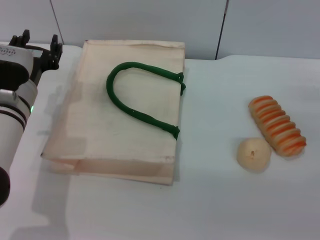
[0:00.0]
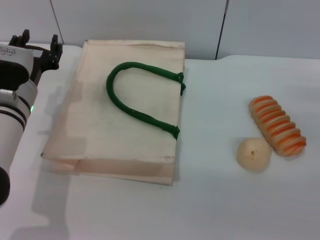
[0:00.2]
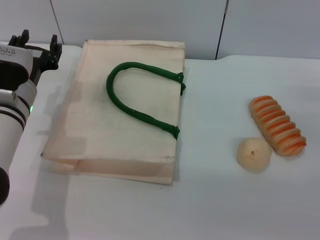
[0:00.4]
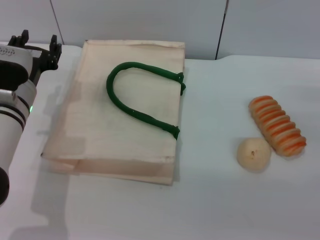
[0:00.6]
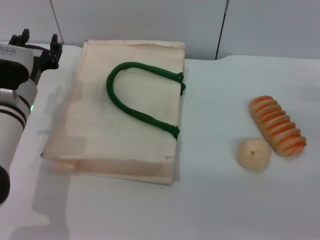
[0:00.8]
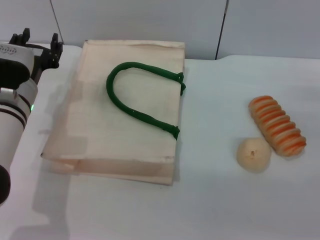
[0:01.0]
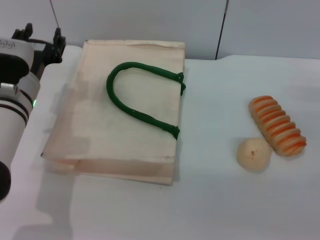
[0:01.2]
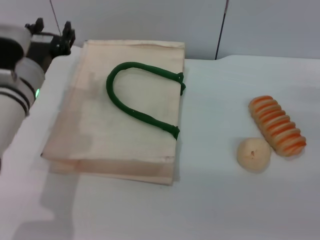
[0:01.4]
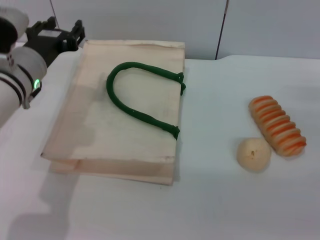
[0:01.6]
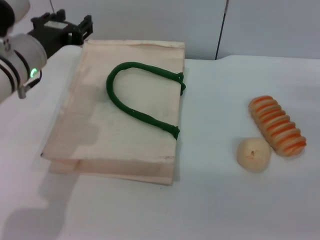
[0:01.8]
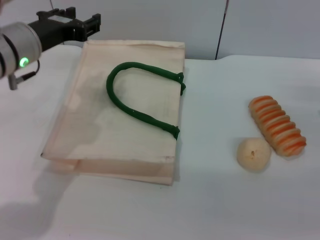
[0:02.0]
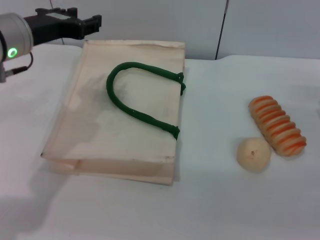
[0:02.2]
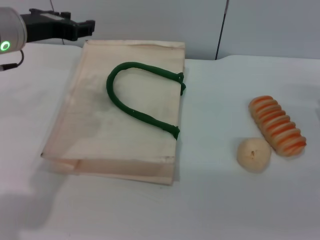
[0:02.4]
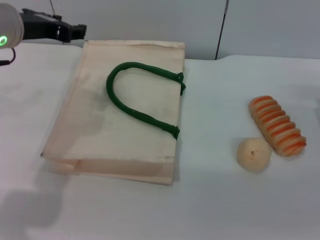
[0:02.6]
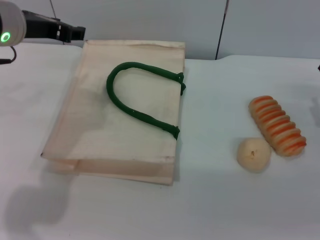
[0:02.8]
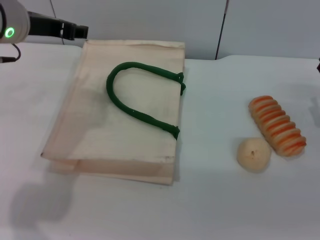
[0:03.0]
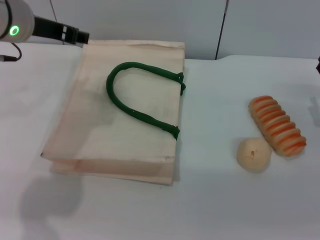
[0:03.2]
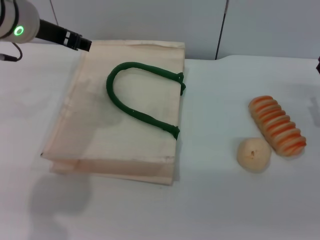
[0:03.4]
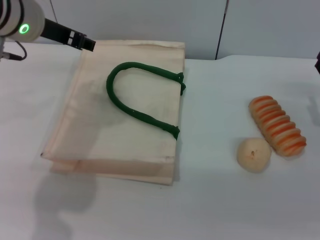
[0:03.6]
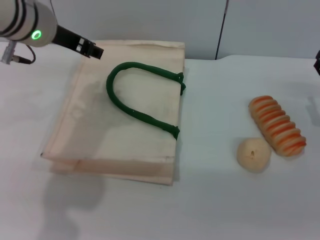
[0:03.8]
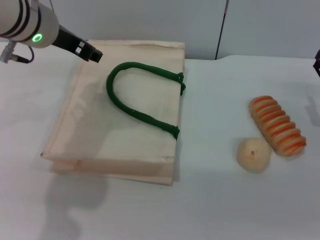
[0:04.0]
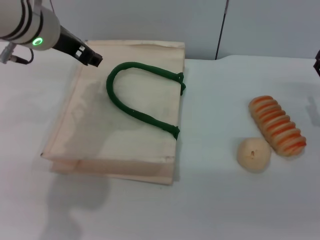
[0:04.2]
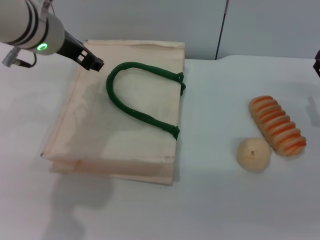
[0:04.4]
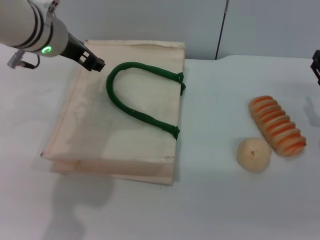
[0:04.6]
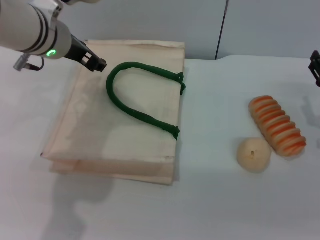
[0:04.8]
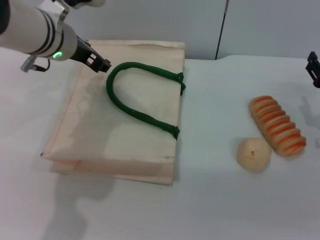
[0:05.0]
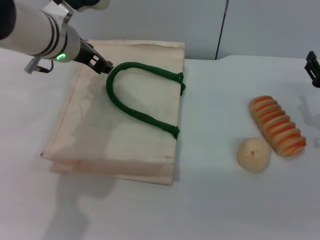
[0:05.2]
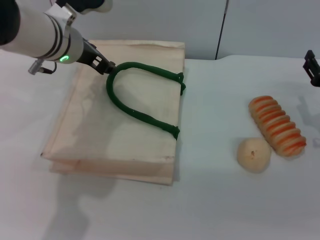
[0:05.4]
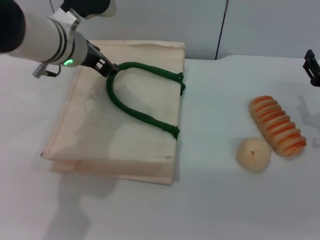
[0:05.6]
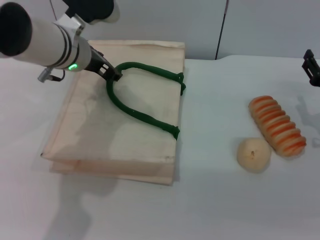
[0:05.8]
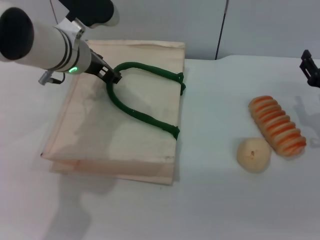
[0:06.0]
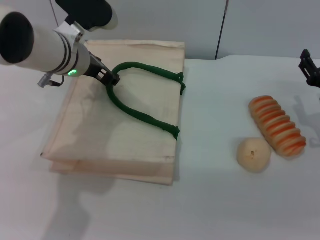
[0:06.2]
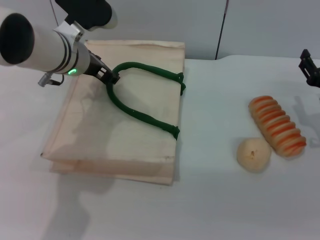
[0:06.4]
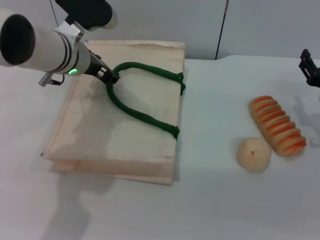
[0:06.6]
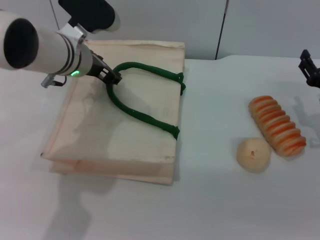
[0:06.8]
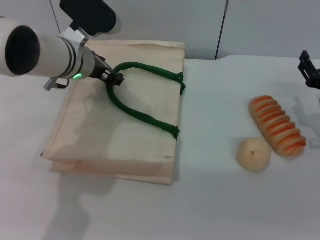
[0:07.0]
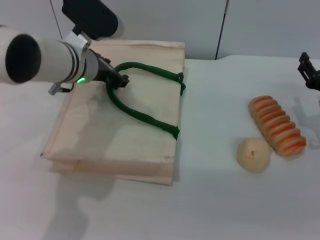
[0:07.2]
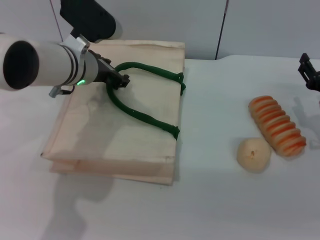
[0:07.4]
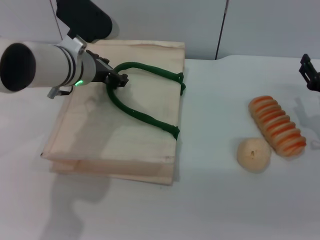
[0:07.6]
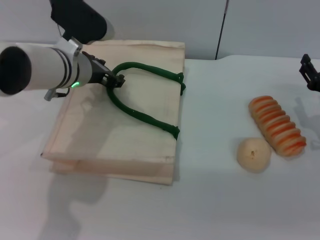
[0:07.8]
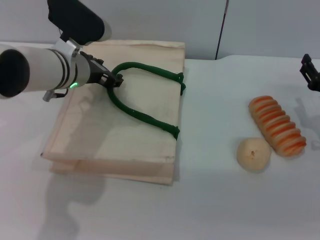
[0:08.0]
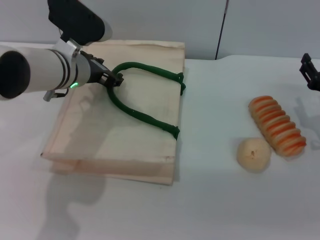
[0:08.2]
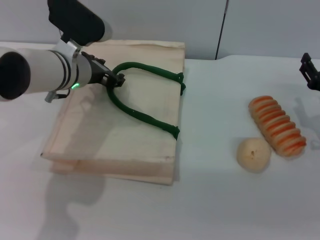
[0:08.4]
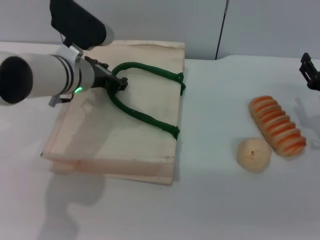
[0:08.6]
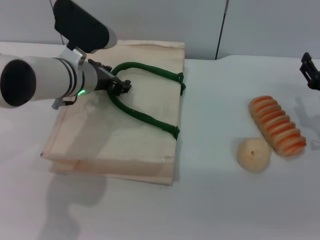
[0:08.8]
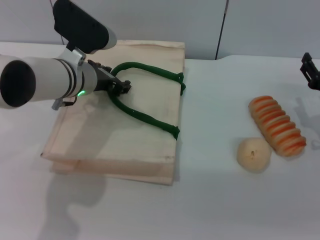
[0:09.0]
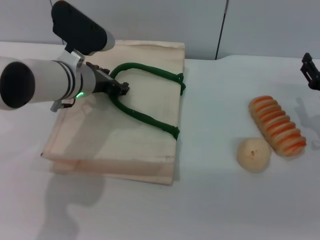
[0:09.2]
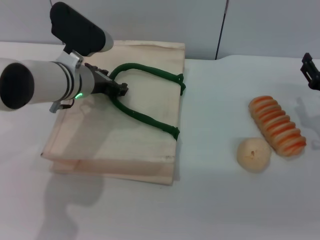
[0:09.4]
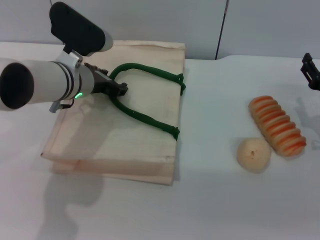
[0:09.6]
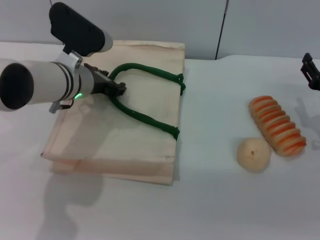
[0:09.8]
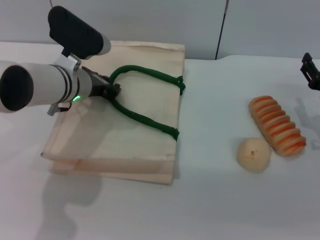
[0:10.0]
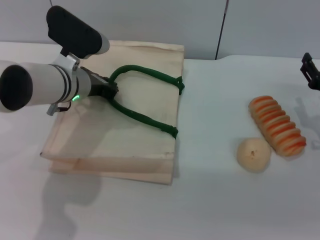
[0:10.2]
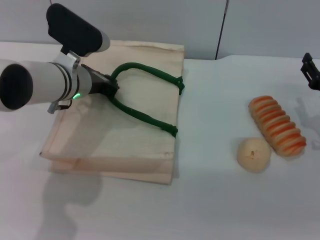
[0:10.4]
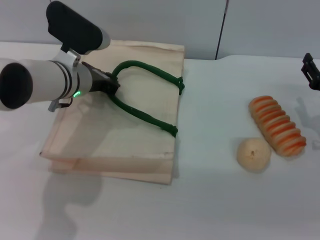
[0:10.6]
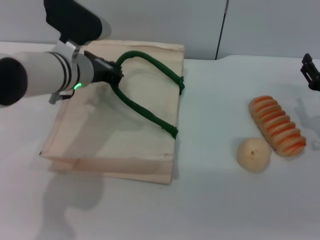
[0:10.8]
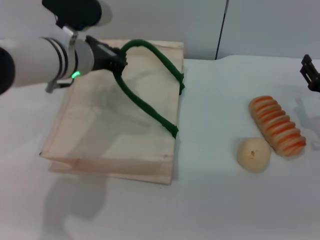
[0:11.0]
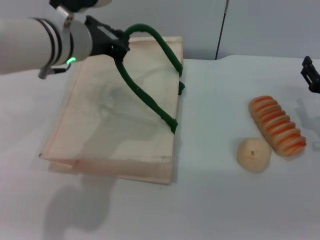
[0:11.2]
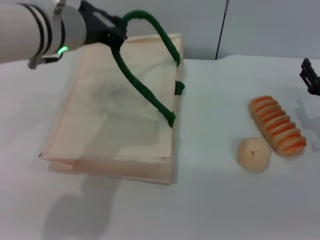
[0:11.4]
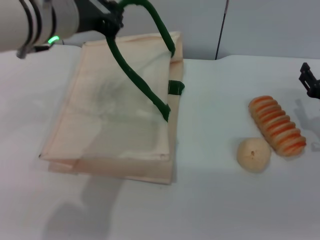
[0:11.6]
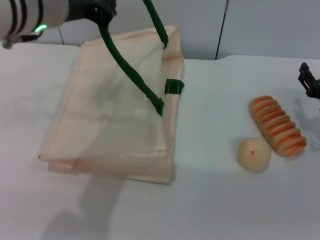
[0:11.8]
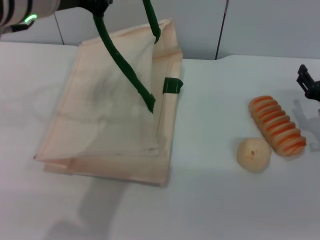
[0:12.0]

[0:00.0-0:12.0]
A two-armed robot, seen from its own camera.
Task of the whole recording: pick up the bread and egg yolk pastry from the table and place it in the white handbag.
Step, 0:00.0 to 0:11.2: Lift the woven bag with the left gripper to open it.
0:00.0 to 0:01.6: The left gripper is displaced upward by some 5 cm.
0:01.6 to 0:03.0: The left gripper is displaced upward by about 10 cm.
0:04.4 to 0:06.0: The left gripper heads downward, covering some 5 cm.
0:06.0 to 0:09.0: The grippers move only a little.
0:09.0 to 0:10.4: The left gripper closes its fingers.
0:10.4 to 0:12.0: The left gripper heads upward and backward, covering some 20 cm.

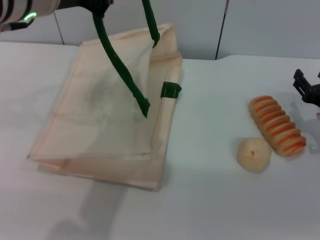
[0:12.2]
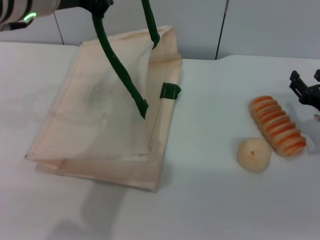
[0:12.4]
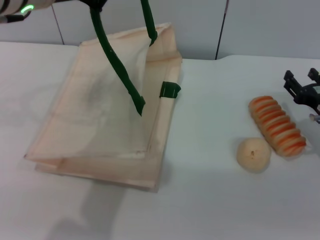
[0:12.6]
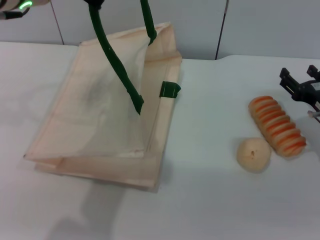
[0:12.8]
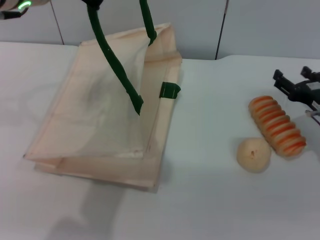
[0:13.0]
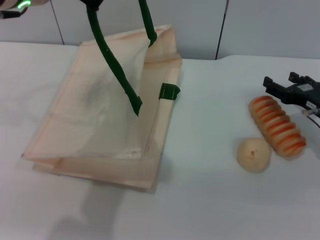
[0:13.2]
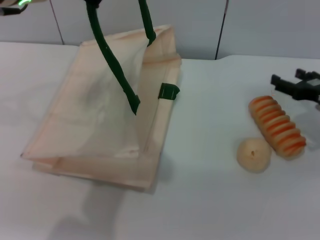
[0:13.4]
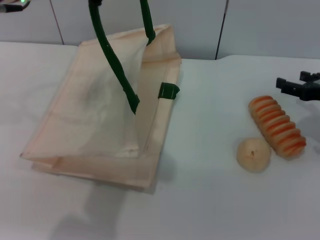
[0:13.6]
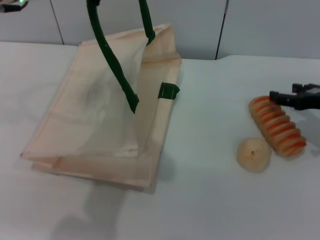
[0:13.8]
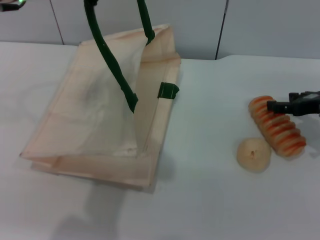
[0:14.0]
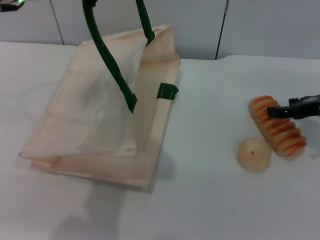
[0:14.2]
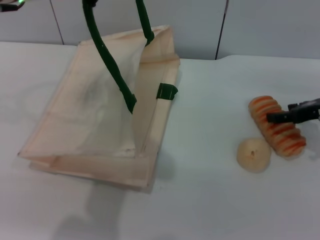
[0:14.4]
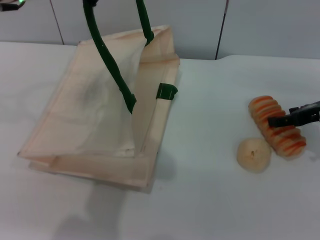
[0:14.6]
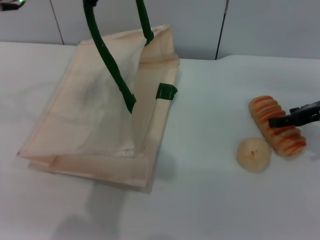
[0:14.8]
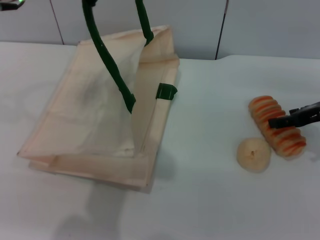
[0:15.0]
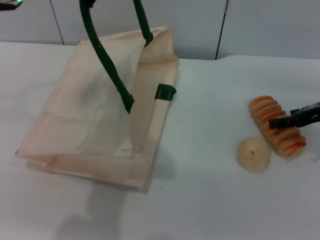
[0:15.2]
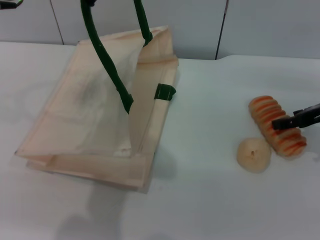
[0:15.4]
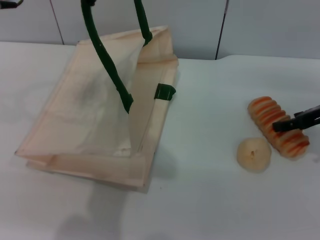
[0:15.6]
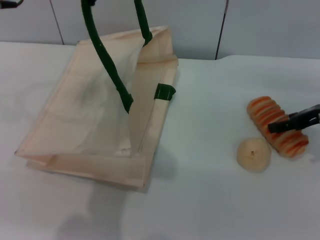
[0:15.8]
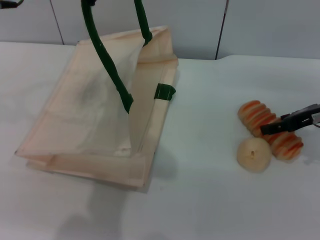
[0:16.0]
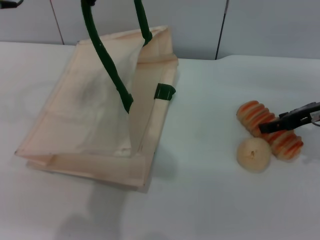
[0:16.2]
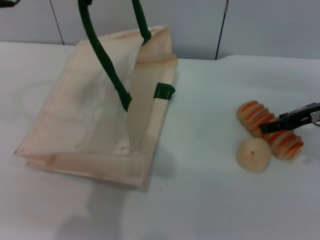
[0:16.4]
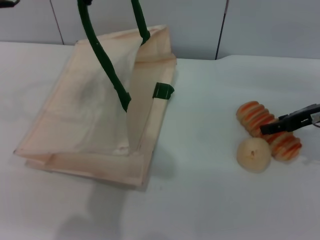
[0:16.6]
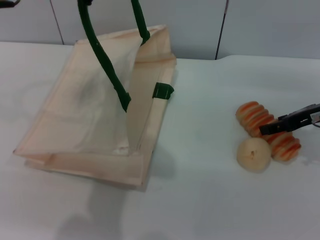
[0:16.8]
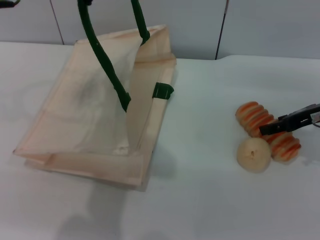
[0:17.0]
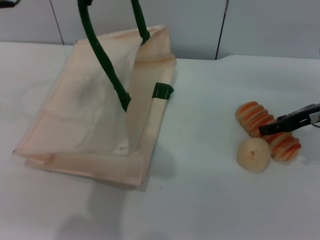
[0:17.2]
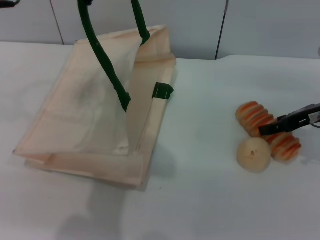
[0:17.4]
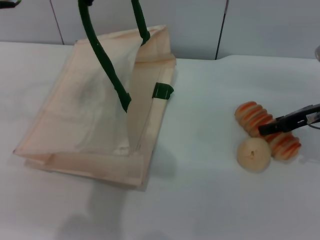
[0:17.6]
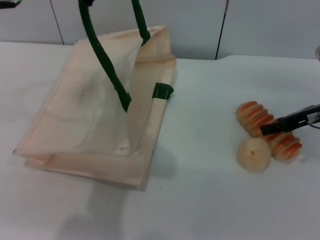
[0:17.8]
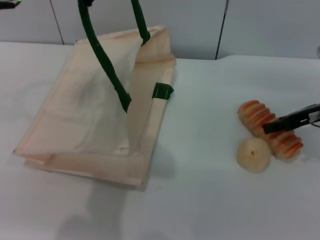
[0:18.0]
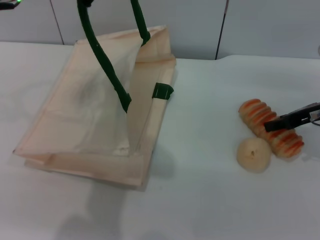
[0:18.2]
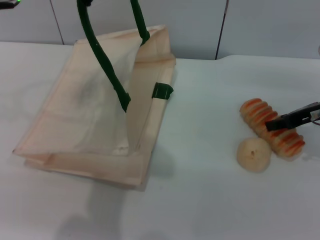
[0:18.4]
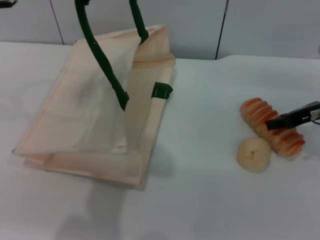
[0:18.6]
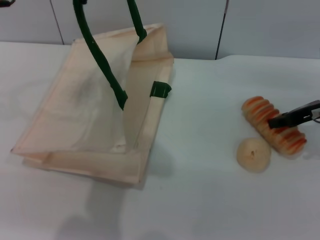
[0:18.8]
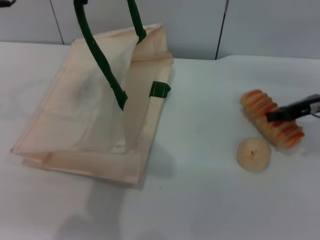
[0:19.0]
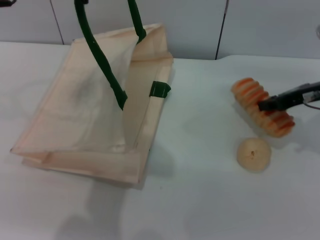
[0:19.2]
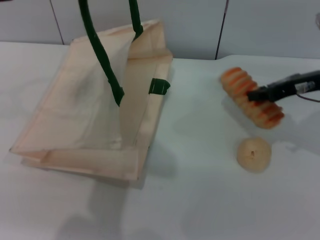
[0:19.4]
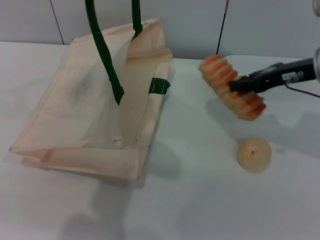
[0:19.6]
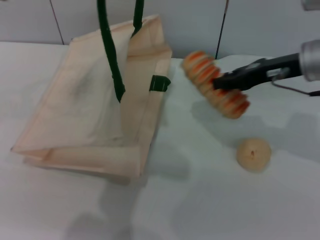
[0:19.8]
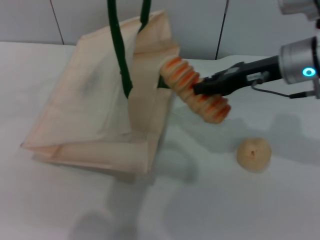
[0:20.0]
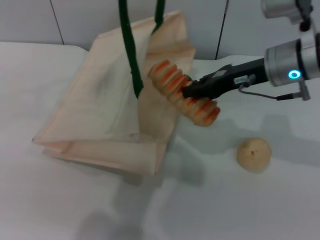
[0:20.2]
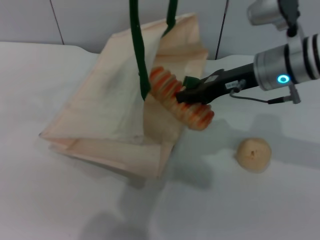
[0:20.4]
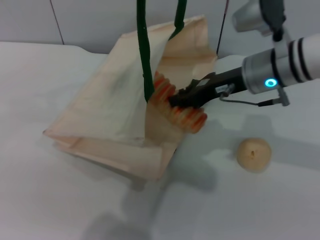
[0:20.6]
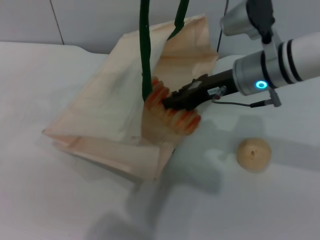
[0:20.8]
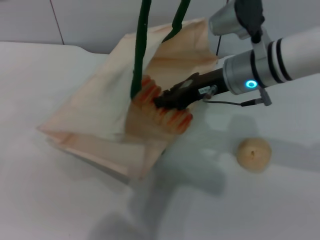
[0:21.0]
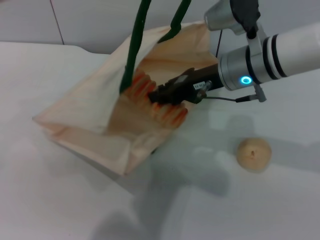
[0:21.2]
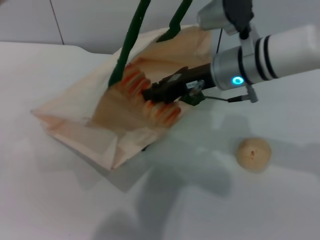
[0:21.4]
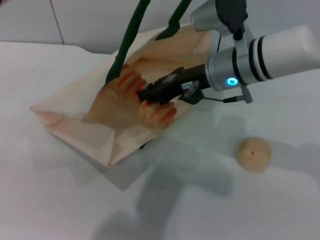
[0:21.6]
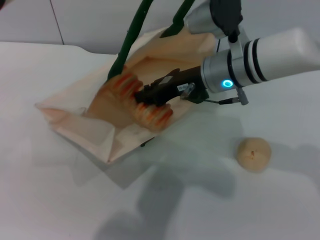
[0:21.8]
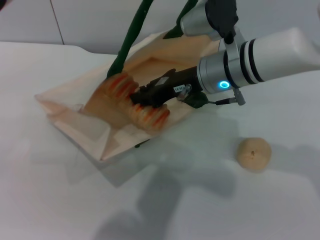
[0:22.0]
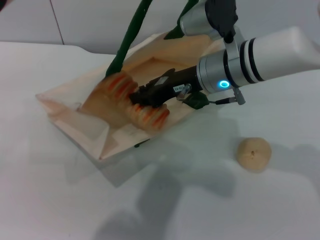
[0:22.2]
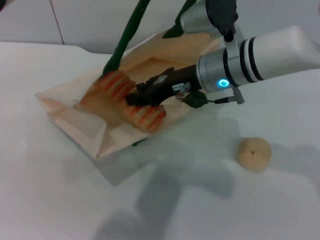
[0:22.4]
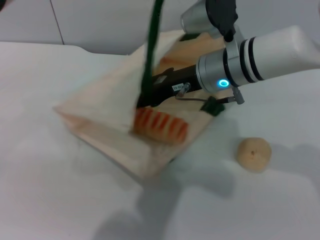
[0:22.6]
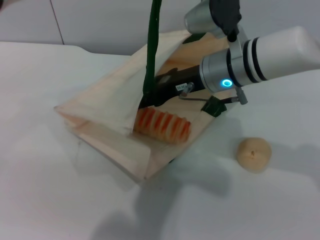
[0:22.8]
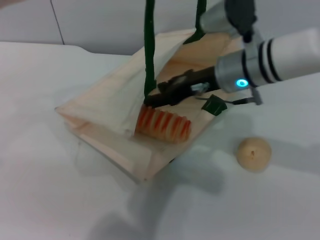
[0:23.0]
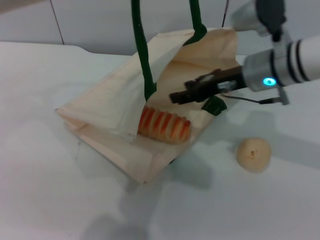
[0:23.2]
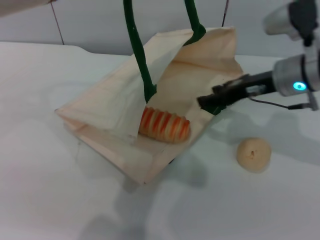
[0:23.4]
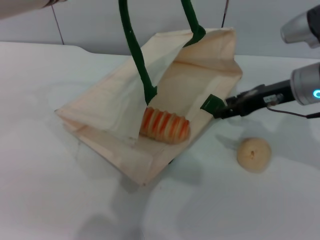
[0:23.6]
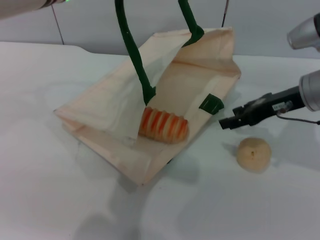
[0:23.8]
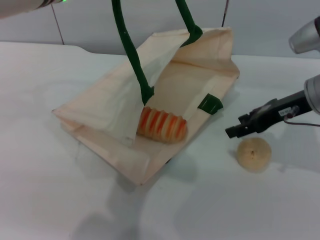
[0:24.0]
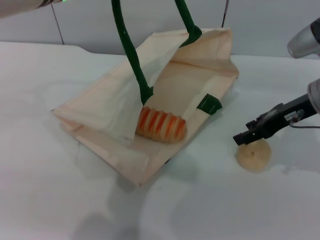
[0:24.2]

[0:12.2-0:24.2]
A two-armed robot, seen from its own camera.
Task of the whole recording: pick up the bread and egg yolk pastry from the table and place it in the white handbag.
Step, 0:12.2 to 0:19.6: Pick up the bread with the right gripper.
Step, 0:19.8 to 0:23.8: Place the bread into the woven bag with the right gripper.
0:12.2 to 0:13.8: The right gripper is displaced upward by roughly 5 cm.
0:15.2 to 0:16.6: There are only small adjustments of the grippers.
0:16.6 to 0:18.2: The right gripper closes its fingers.
0:18.2 to 0:19.8: The right gripper heads to the left and upward, covering approximately 10 cm, and closes.
0:19.8 to 0:21.2: The right gripper shifts roughly 10 cm to the left. Meanwhile the left gripper heads to the right, covering some 5 cm.
0:22.6 to 0:24.2: The right gripper is displaced to the right by some 15 cm, and opens its fingers. Meanwhile the left gripper moves some 5 cm.
